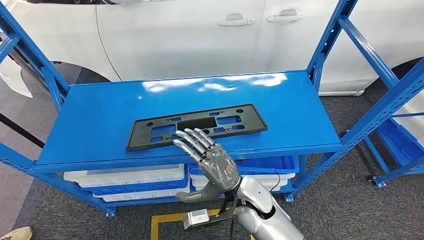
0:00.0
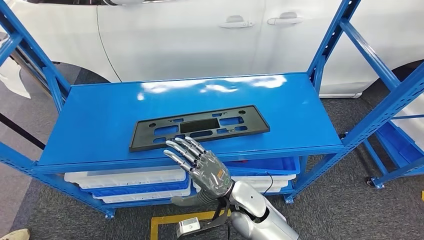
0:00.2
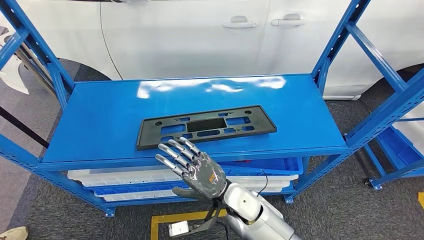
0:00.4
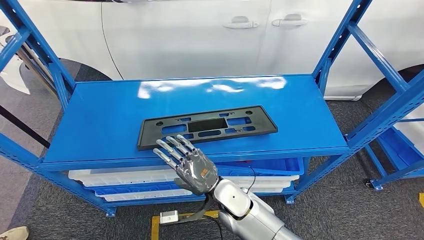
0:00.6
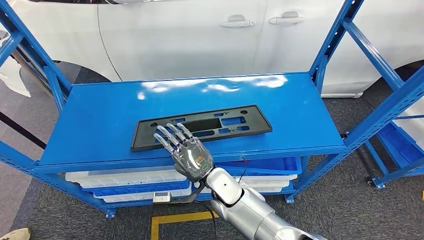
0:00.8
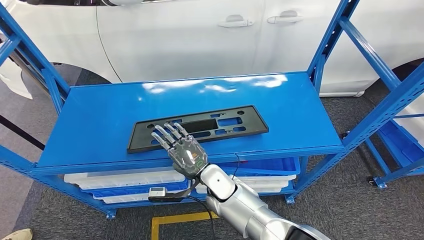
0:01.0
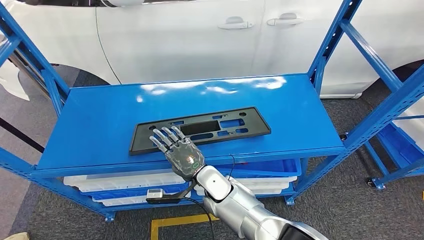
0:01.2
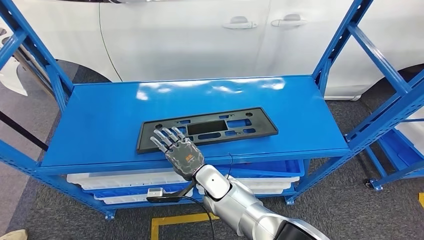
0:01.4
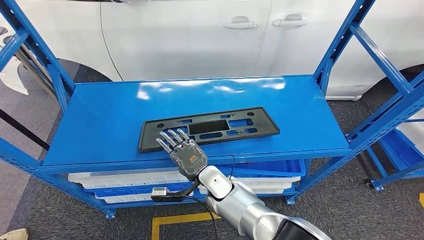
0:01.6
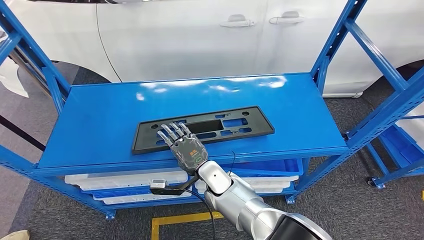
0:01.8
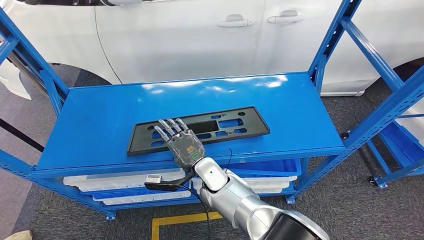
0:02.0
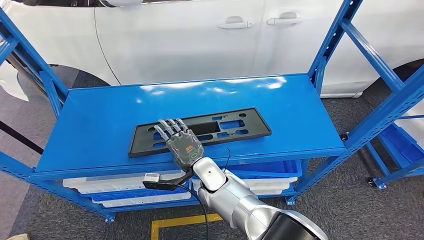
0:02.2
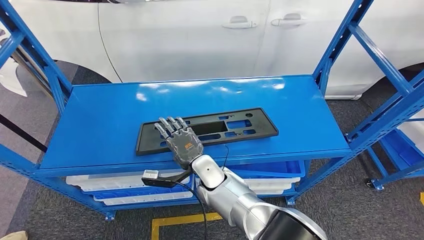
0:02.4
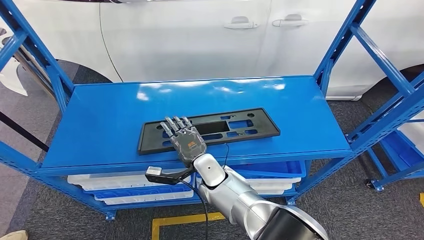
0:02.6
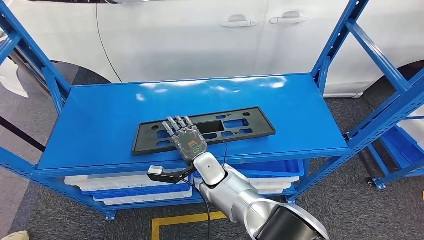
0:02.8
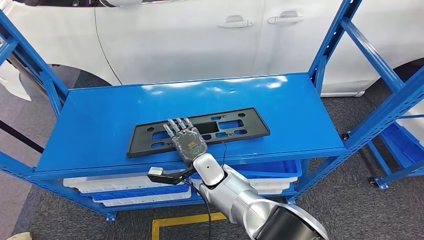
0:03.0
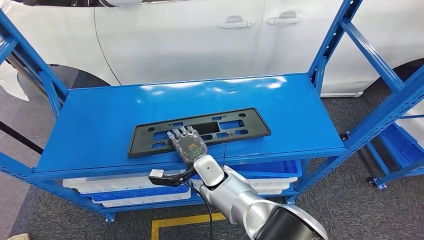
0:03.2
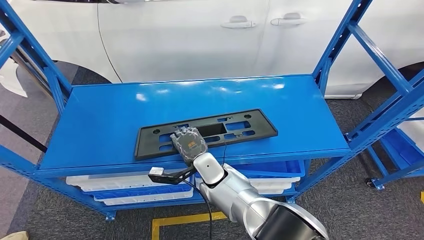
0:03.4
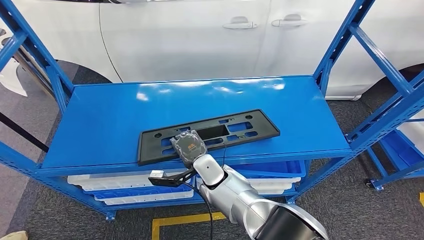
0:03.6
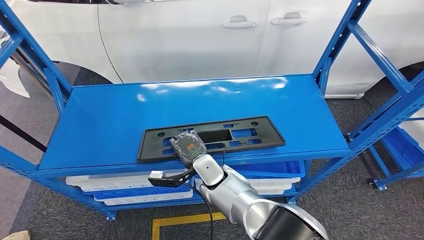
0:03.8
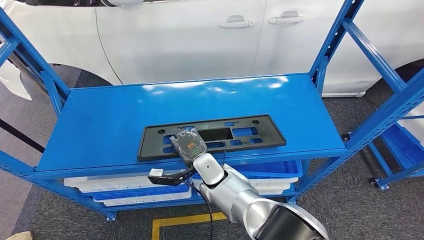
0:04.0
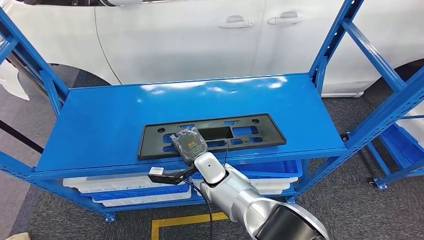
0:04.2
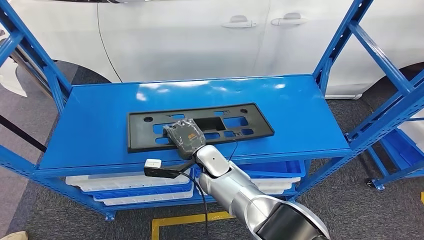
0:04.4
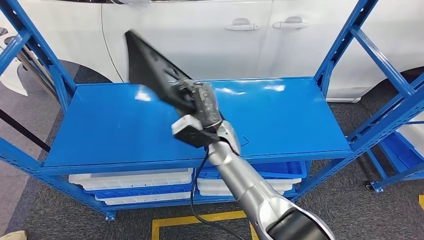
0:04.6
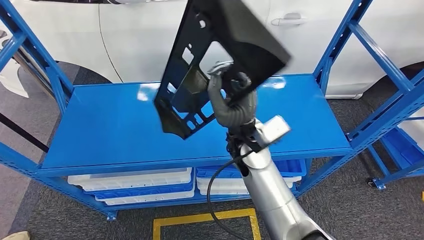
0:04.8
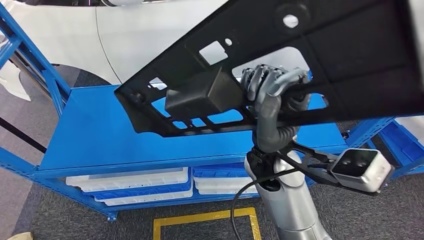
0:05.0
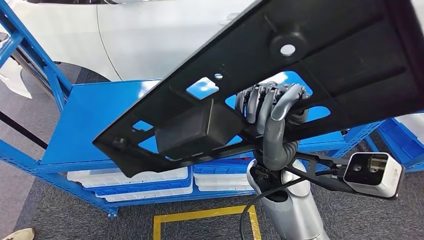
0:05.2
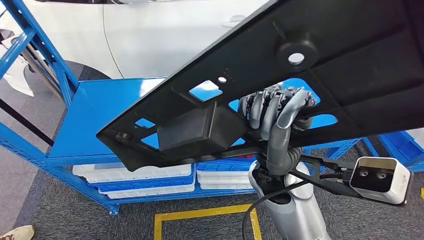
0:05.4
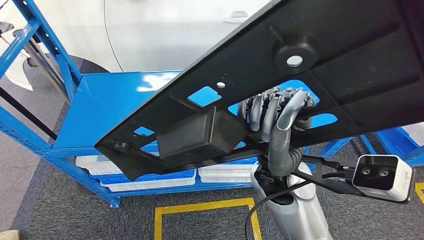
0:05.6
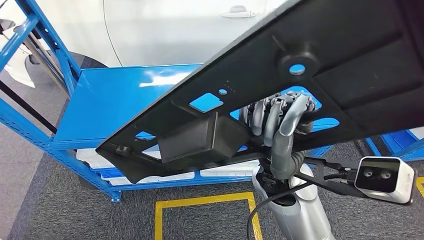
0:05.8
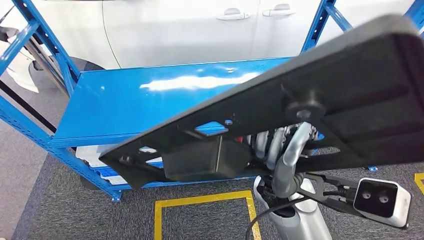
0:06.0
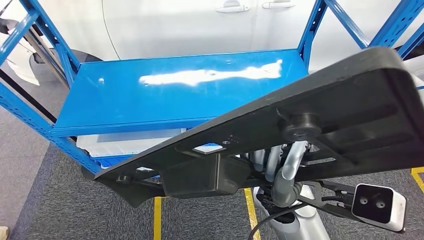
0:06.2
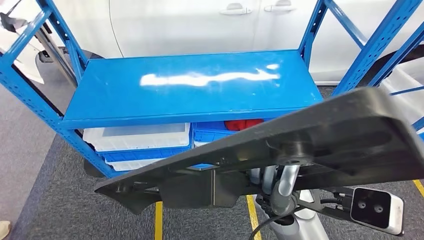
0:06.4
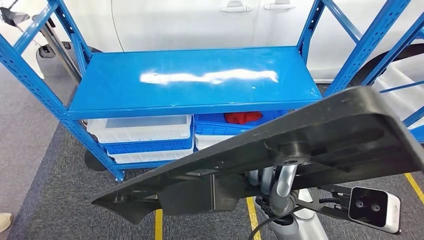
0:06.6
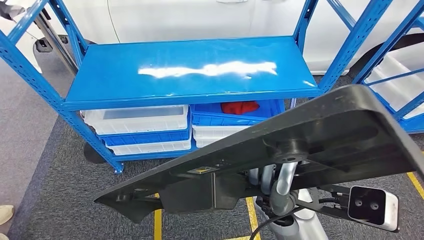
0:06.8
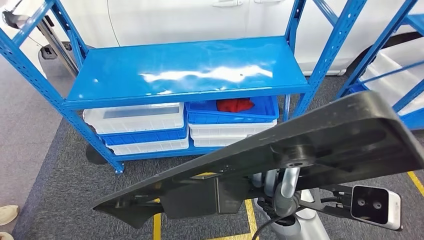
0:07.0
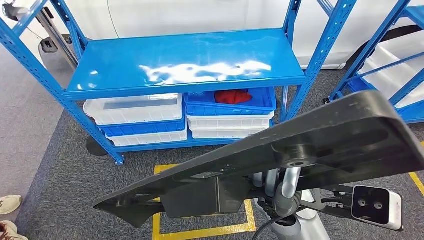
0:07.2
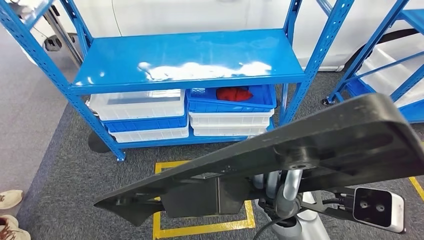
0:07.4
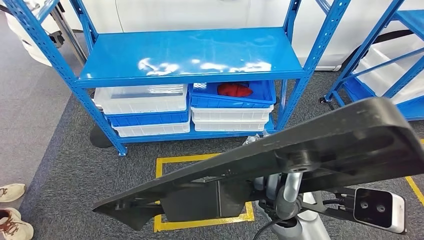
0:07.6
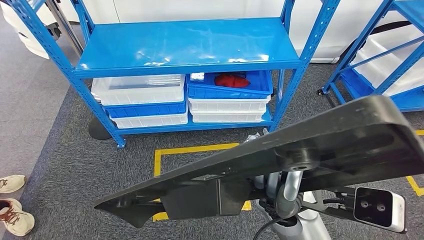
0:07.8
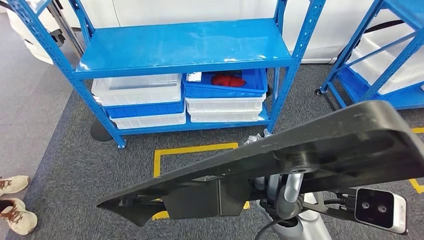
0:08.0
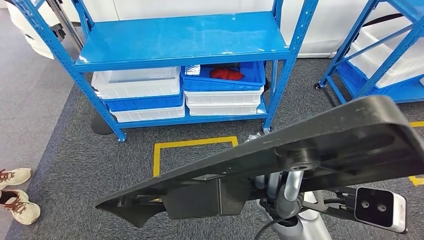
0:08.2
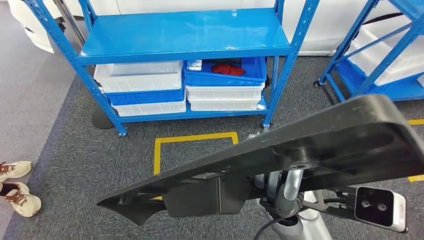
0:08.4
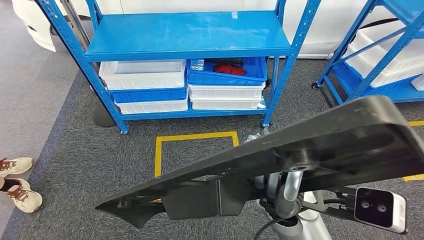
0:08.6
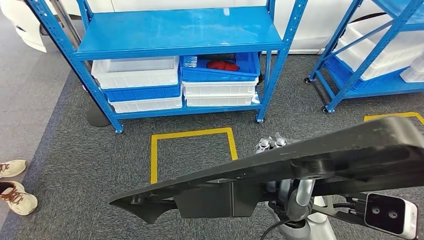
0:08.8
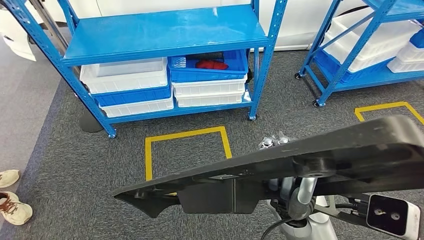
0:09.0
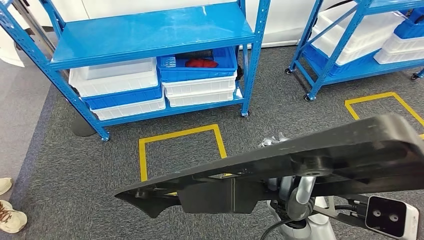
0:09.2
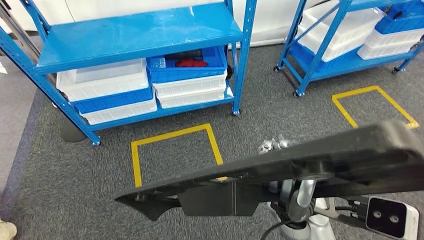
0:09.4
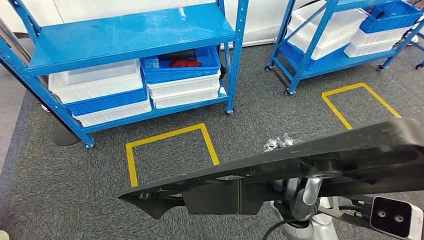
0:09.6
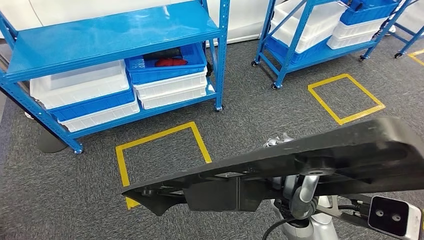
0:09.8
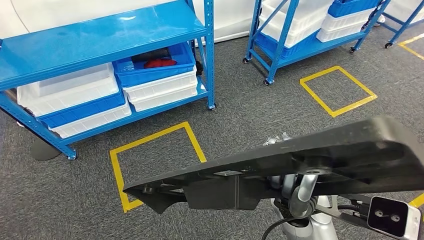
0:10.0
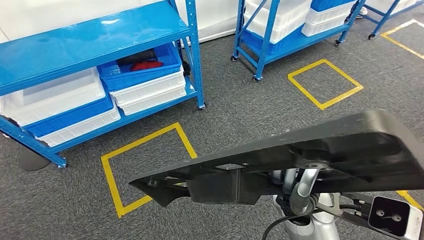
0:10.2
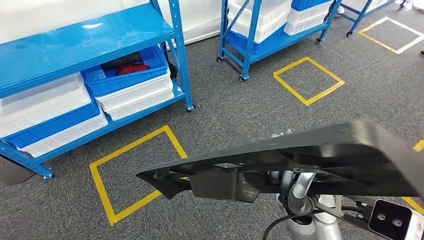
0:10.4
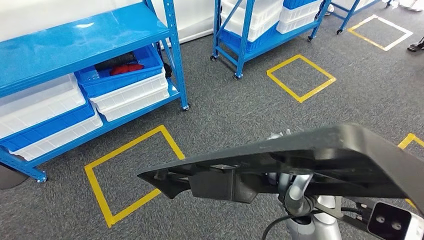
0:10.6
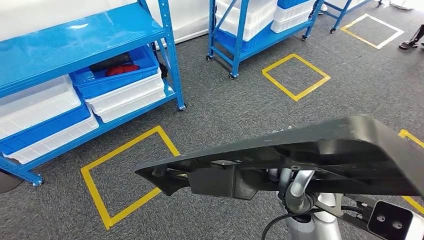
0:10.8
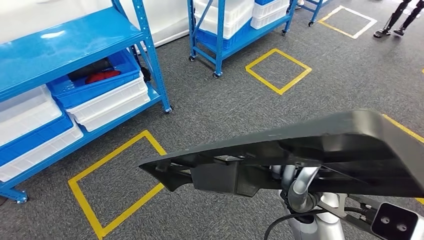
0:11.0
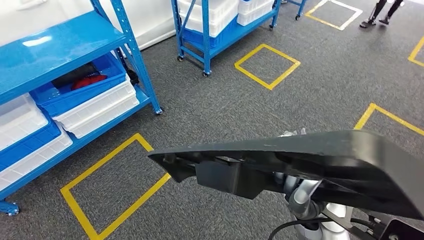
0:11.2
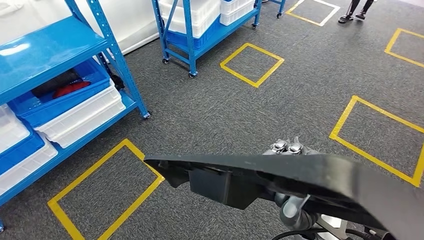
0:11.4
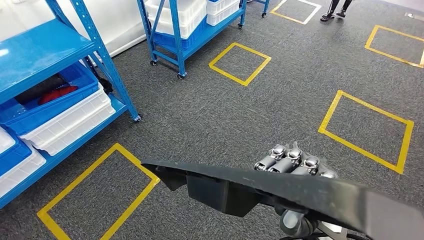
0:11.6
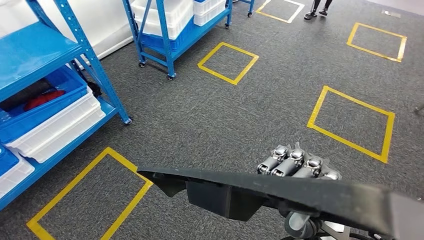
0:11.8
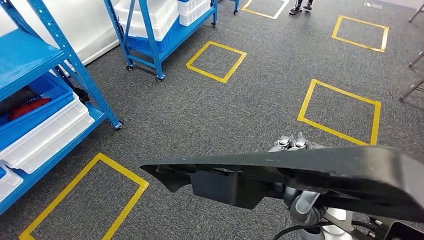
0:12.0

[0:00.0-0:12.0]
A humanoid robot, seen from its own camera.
Step, 0:00.0 to 0:05.8: Pick up the large material from the shelf.

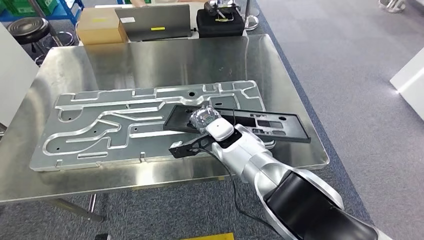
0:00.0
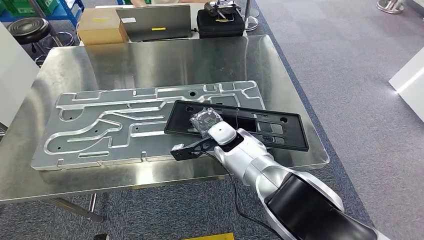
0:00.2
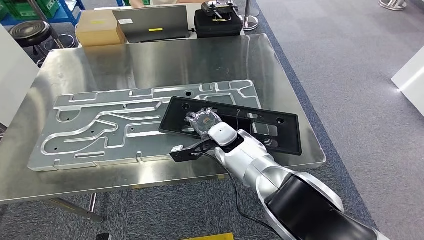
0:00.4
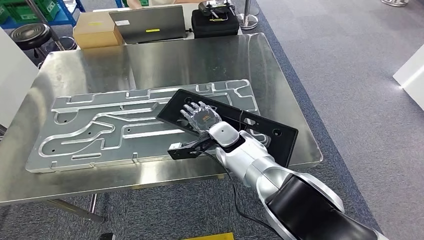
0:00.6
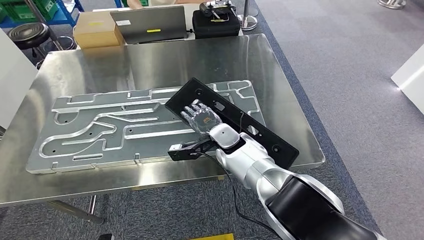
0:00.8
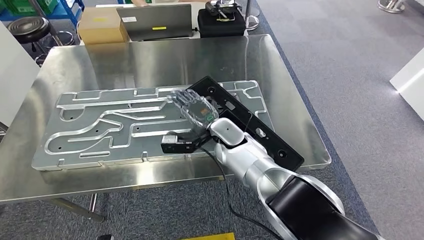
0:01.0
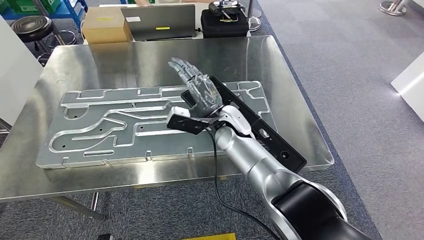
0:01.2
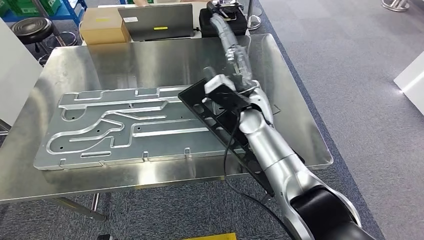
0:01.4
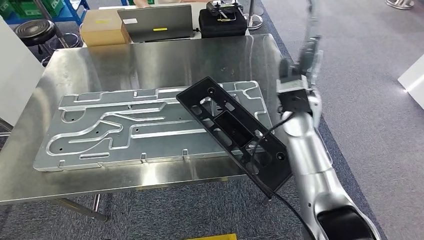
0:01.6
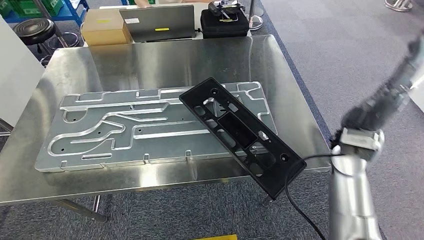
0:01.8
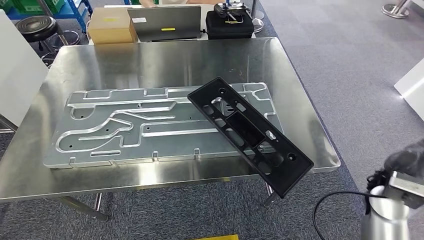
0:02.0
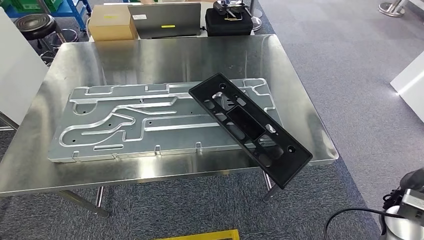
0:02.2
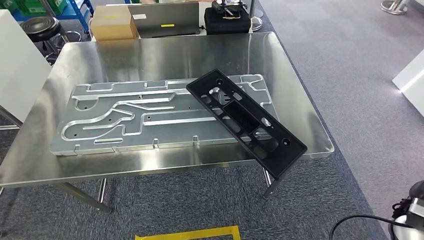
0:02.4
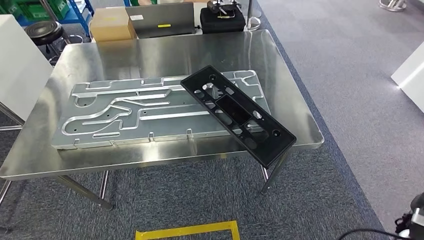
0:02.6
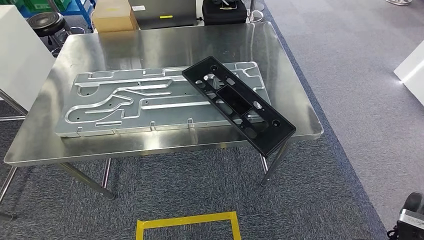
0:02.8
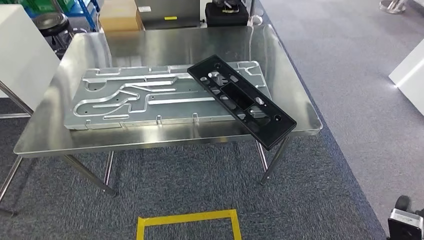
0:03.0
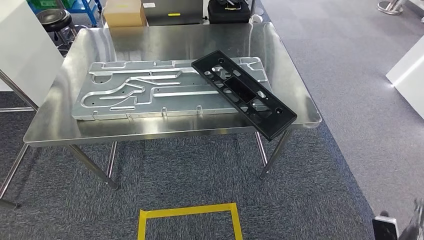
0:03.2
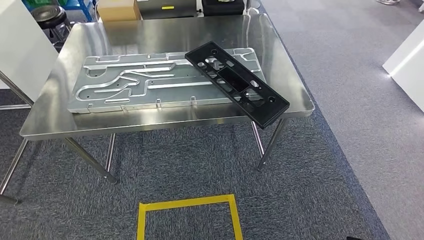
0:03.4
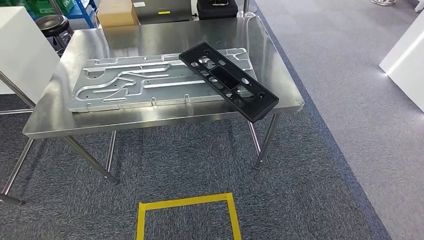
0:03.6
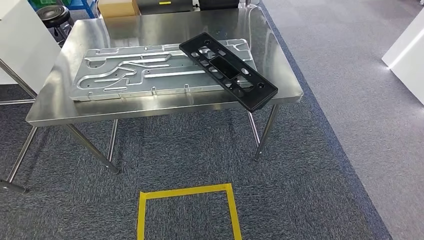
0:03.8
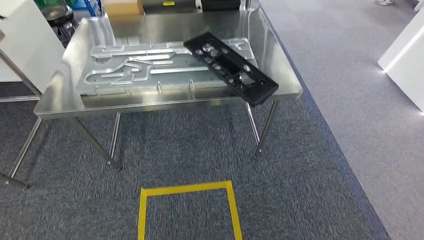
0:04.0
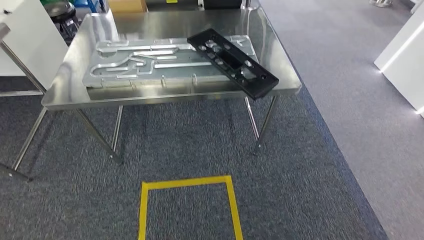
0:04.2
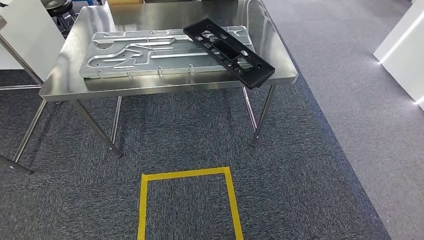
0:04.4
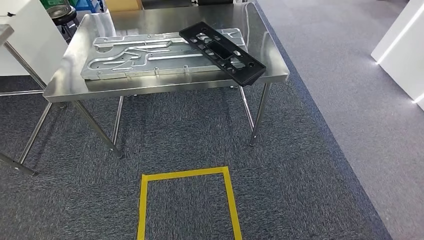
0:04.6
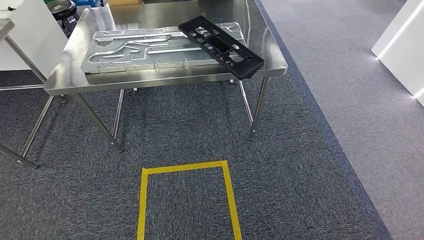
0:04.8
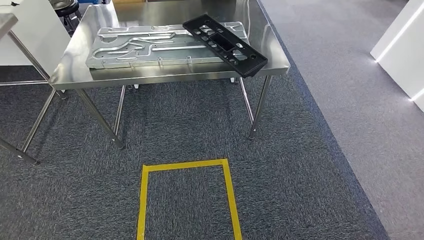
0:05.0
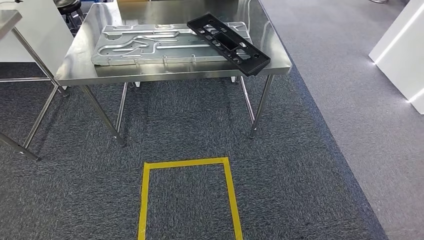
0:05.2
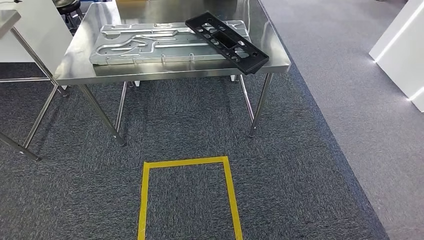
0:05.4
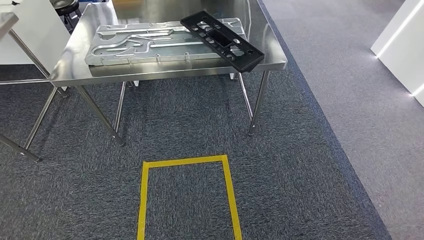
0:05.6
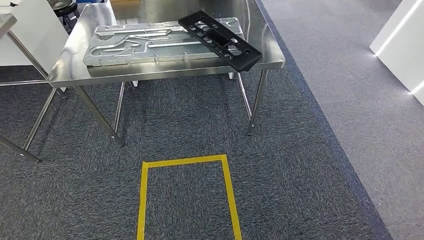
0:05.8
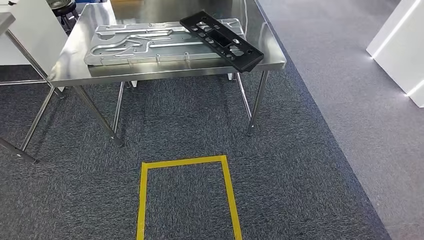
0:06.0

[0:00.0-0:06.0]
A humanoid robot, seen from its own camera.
Step, 0:00.4 to 0:03.0: Insert the large material into the corresponding slot on the workbench.
Step, 0:03.6 to 0:05.8: Move to the initial position of the shelf.
0:04.4 to 0:06.0: The hands make only small movements.
